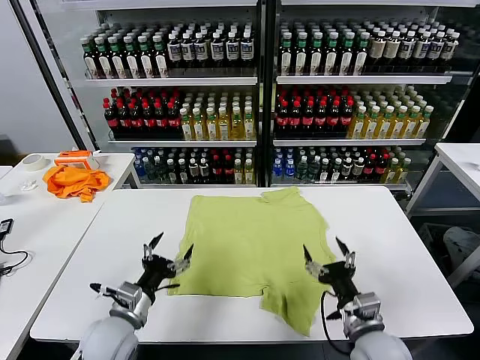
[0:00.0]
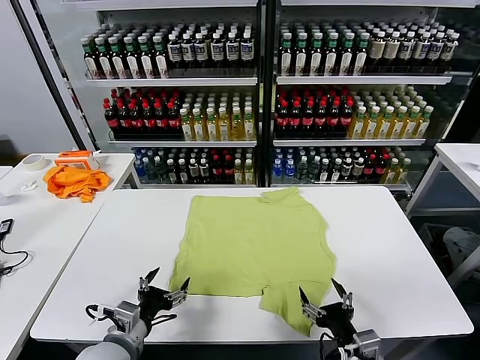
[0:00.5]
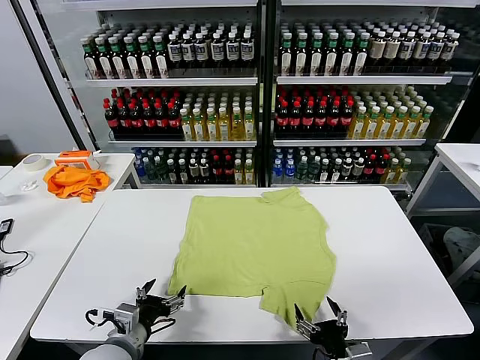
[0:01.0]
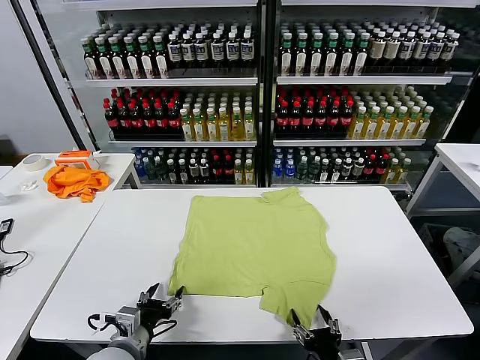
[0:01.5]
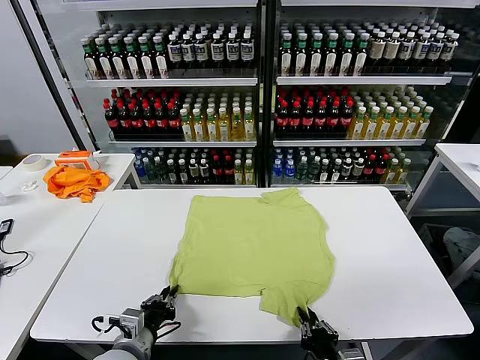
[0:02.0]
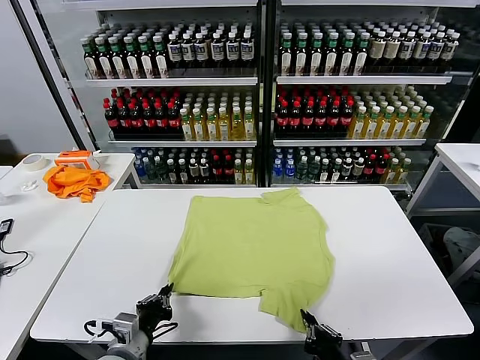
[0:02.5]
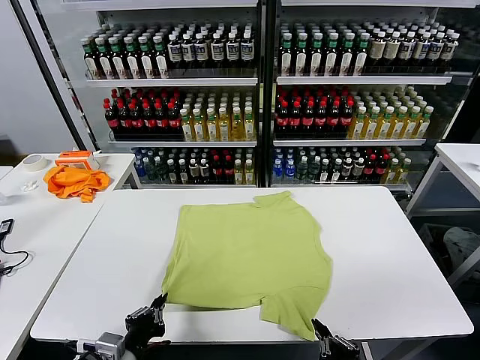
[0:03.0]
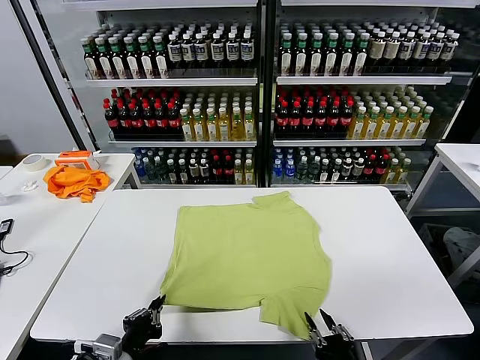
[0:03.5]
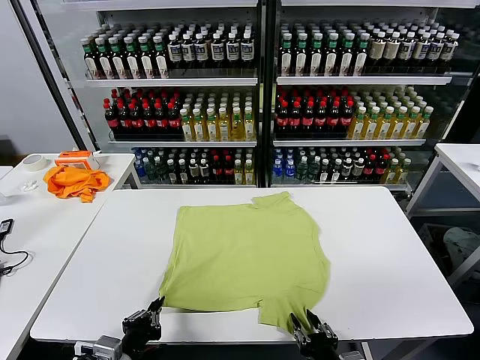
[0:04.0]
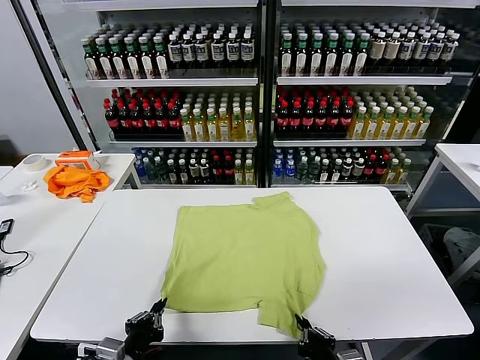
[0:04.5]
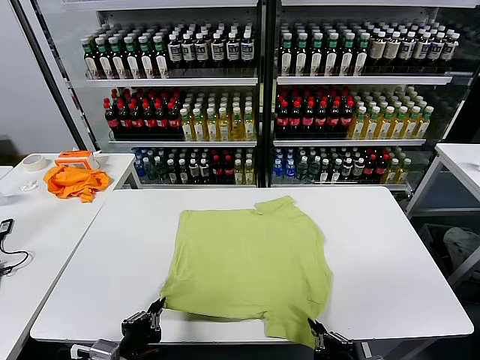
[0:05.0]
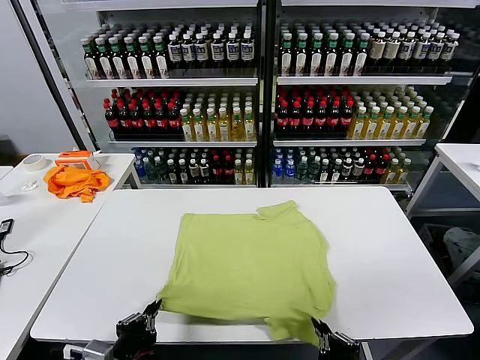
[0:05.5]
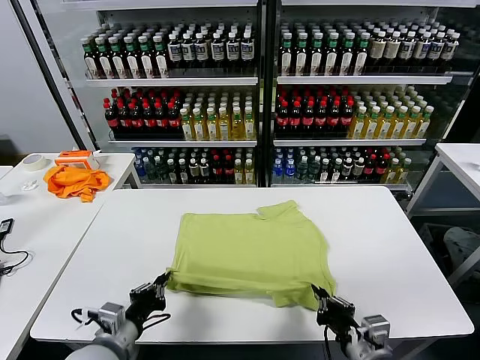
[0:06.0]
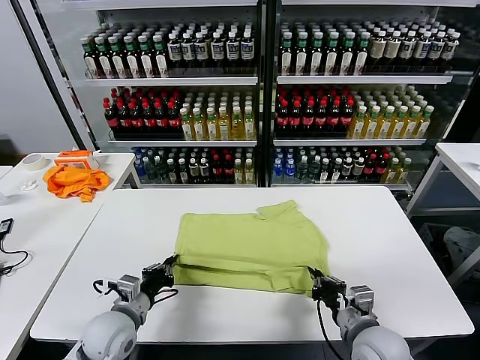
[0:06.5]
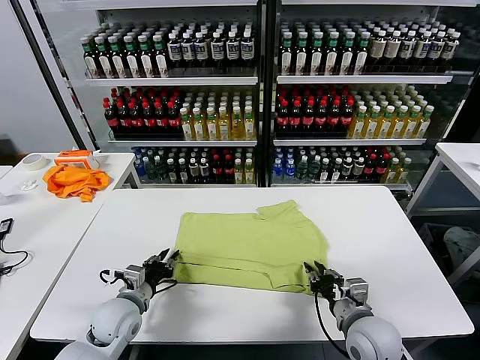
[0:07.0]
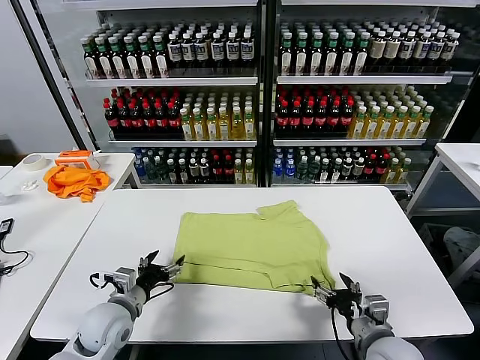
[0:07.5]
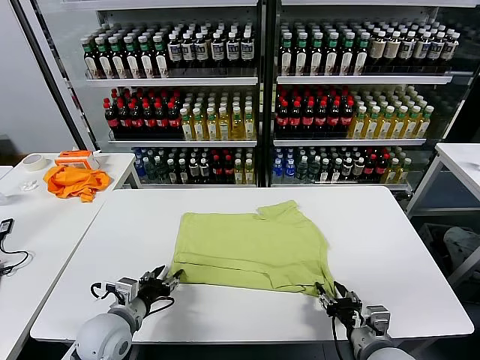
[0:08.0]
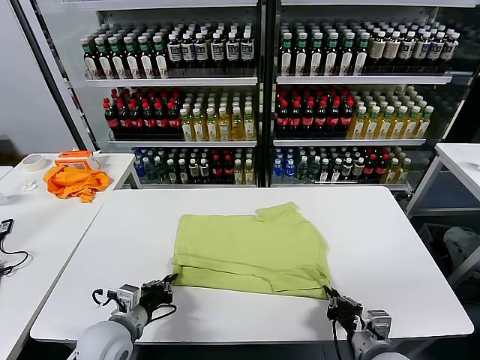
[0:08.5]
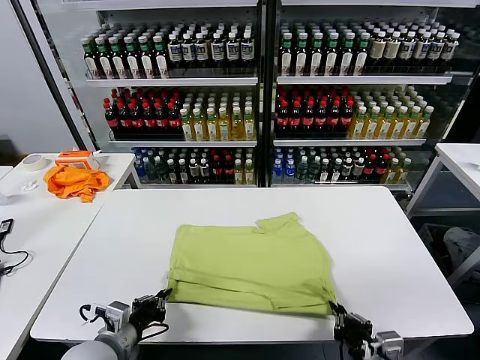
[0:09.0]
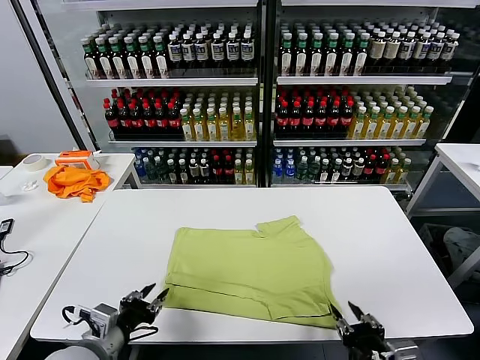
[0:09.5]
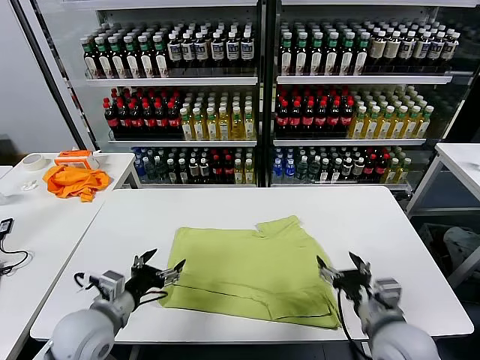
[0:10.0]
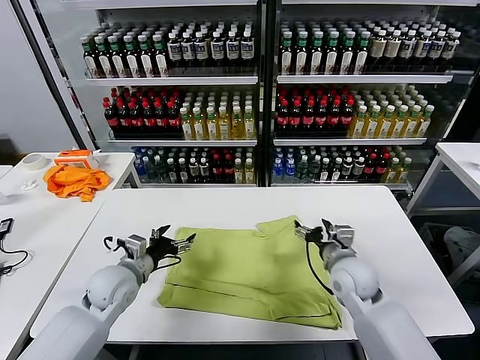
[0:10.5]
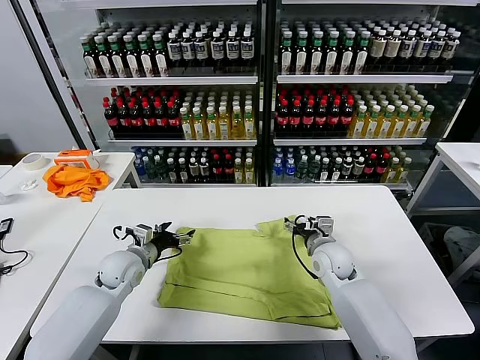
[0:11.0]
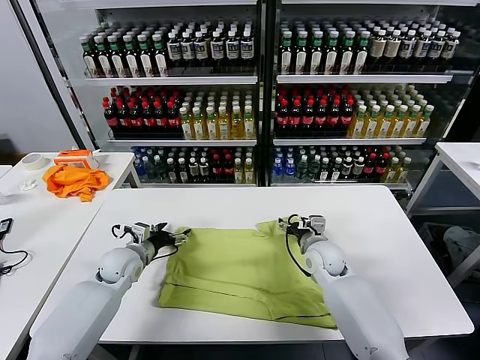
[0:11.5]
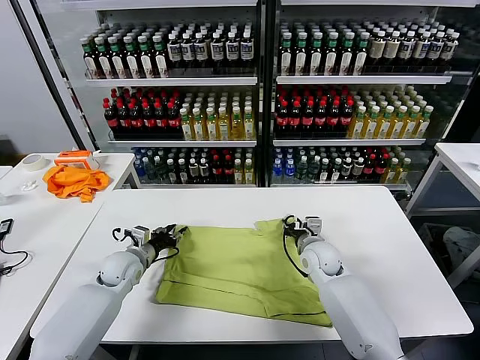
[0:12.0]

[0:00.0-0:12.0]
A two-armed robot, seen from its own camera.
Task of the whole recording: fold and organize the clothes.
Step, 0:00.0 to 0:02.0: use both grippers simultaneously to clamp the lower edge of the clothing fabric.
Step, 0:02.5 to 0:07.0: use both grippers to drag the lower edge of the fabric forward and fold it over the upper edge.
Step, 0:07.5 to 0:09.0: Drag the clothes downward with both gripper.
0:02.0 to 0:04.0: The left gripper goes approximately 5 cm backward.
0:04.0 to 0:06.0: The left gripper heads forward, covering approximately 5 cm, while the right gripper moves forward and upward, approximately 10 cm.
0:06.0 to 0:08.0: The right gripper moves some 5 cm, and opens its fingers. The left gripper travels forward by roughly 5 cm, and opens.
0:08.0 to 0:10.0: The right gripper is displaced upward and forward by roughly 10 cm, and opens up. Meanwhile the left gripper shifts roughly 5 cm upward, and opens its fingers.
0:10.0 to 0:12.0: The two grippers go approximately 20 cm forward and downward. The left gripper closes up. The right gripper closes its fingers.

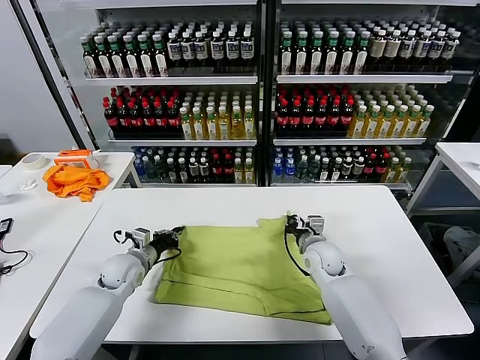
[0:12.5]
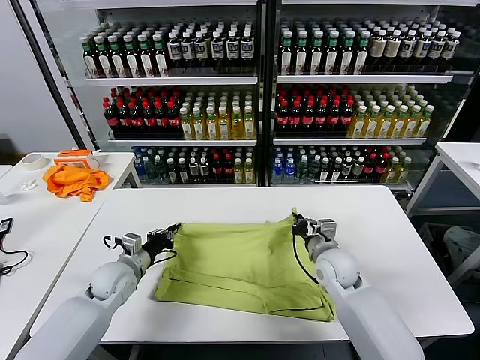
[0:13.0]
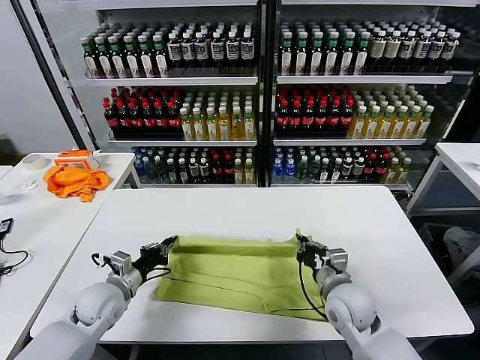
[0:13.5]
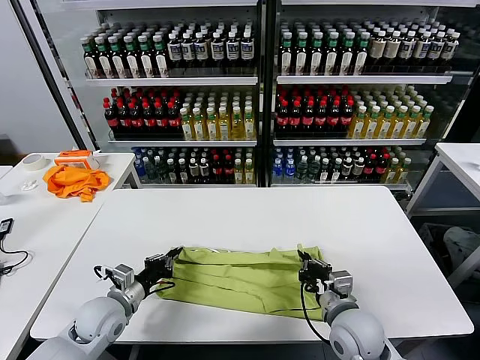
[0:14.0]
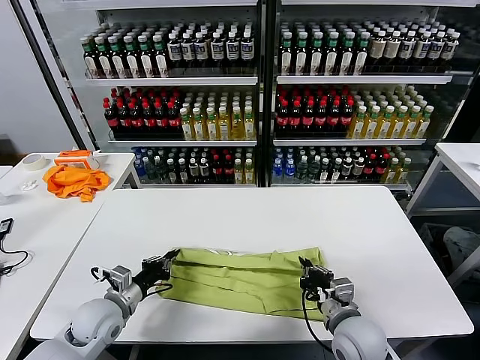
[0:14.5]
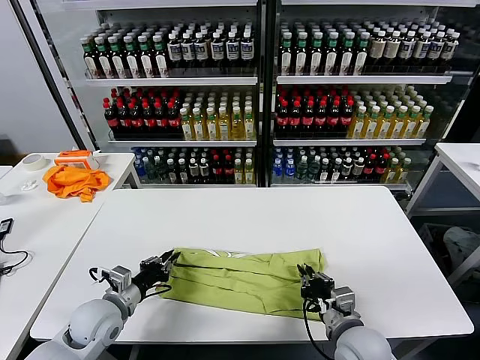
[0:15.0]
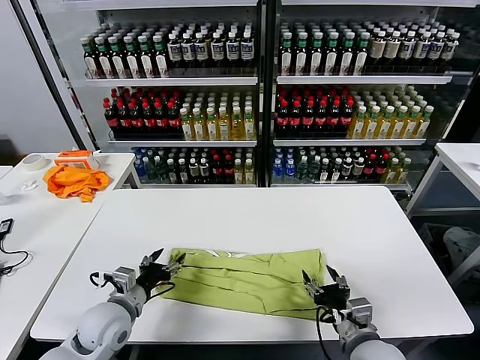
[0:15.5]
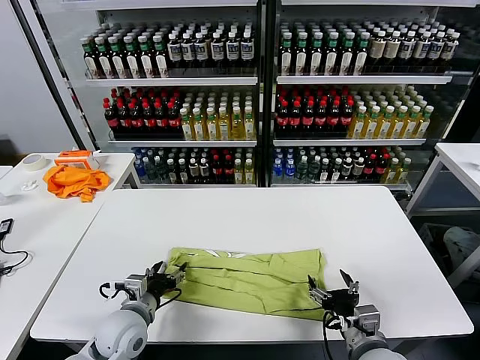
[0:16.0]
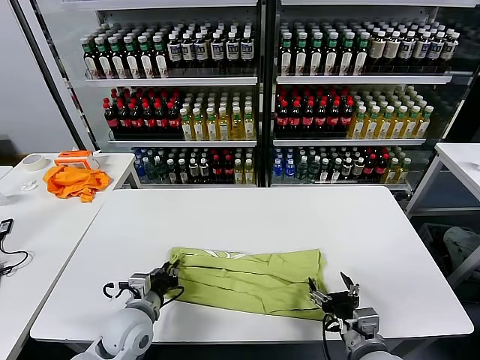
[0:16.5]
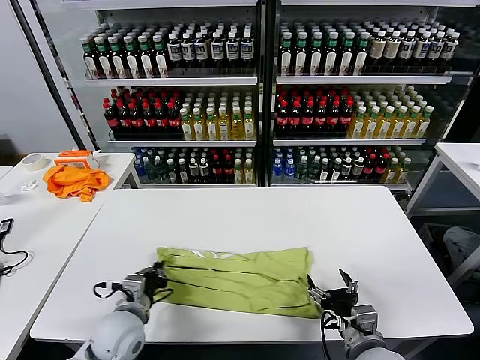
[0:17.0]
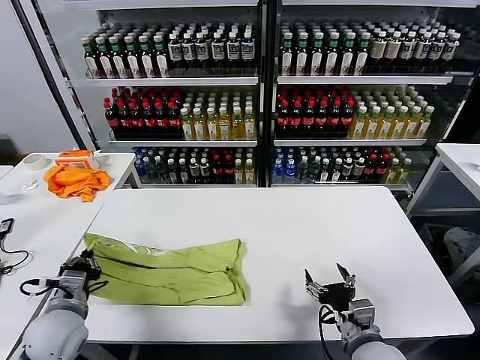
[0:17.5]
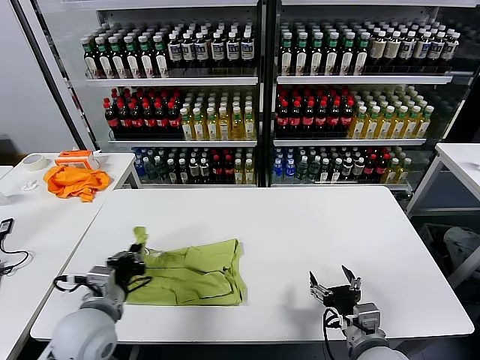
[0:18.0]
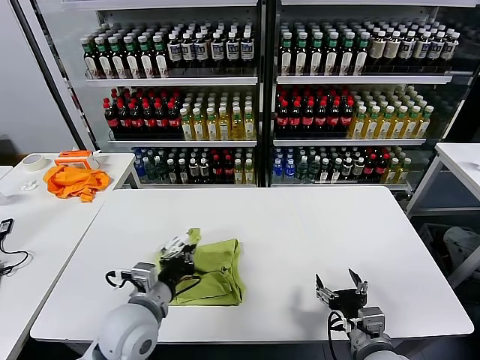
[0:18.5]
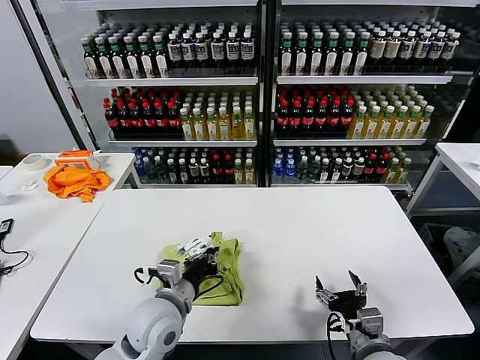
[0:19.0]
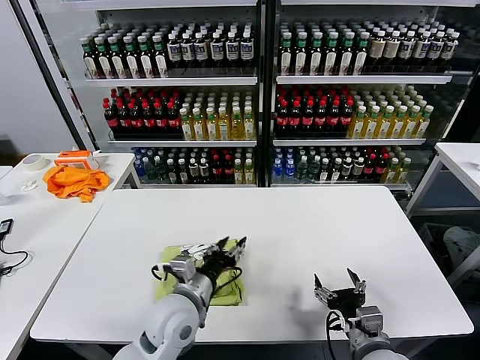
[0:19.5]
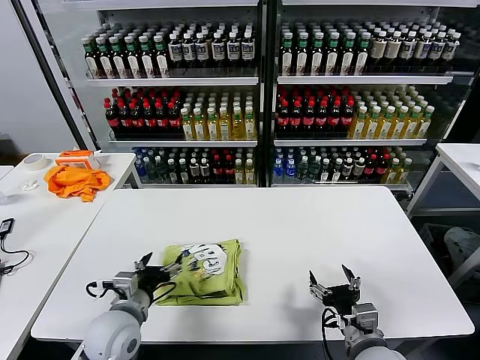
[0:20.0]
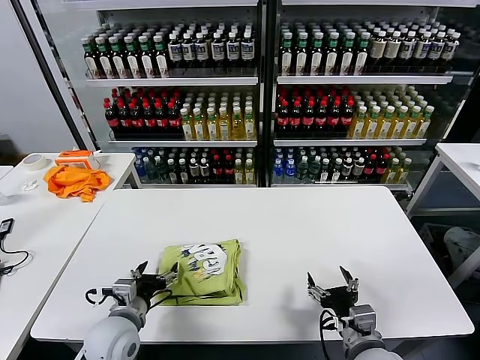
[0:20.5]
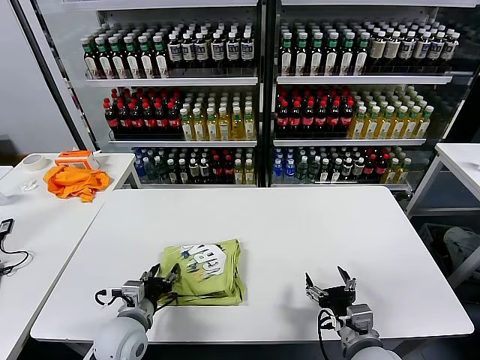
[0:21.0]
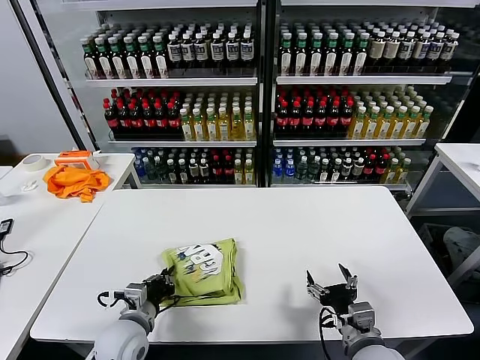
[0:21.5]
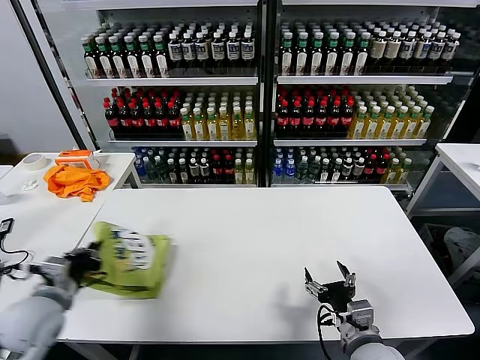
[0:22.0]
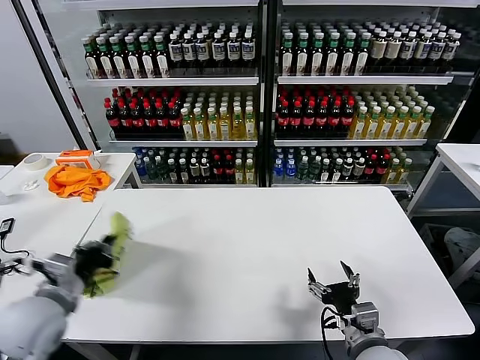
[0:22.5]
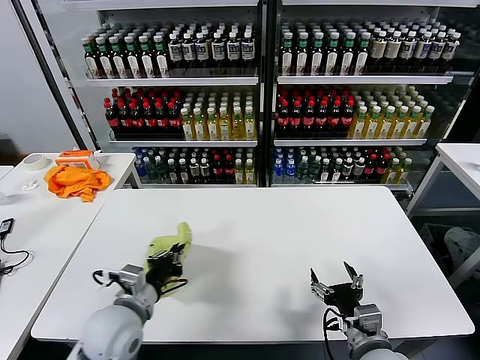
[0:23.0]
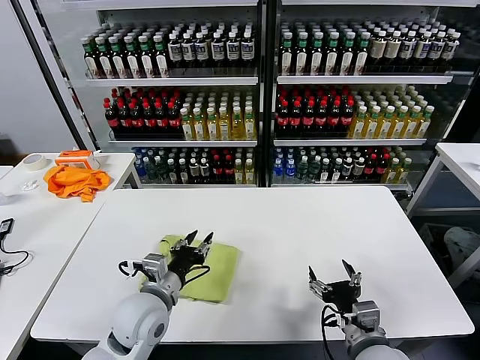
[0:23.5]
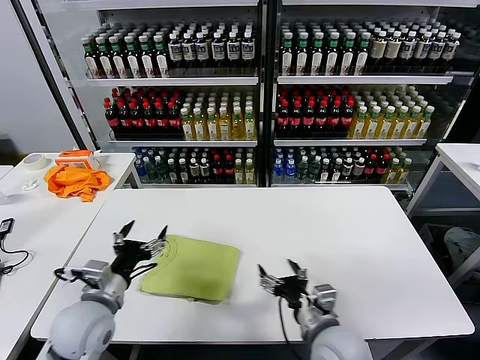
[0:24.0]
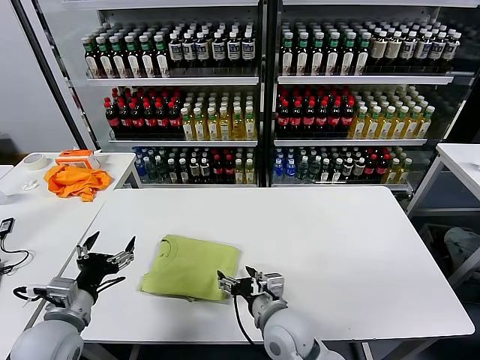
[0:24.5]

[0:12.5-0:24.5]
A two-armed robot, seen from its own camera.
Task of the whole recording: fold and organize the clothes.
Step, 0:12.5 to 0:15.0: use both grippers to drag the upper edge of the fabric backward and fold it over the lower edge.
Step, 0:15.5 to 0:16.5: use the left gripper to clamp the left edge of the fabric.
Step, 0:17.0 to 0:19.0: use the left gripper to drag the left edge of the fabric to the left and folds it over the right edge.
Step, 0:19.5 to 0:23.0: Flip the folded clothes over with left gripper.
0:12.5 to 0:14.5: The left gripper moves backward, some 15 cm. Meanwhile the right gripper is displaced backward by some 20 cm.
0:14.5 to 0:16.5: The right gripper travels backward by approximately 5 cm, and opens. The left gripper shifts roughly 5 cm to the right, and opens, then closes again.
0:16.5 to 0:18.5: The left gripper travels upward by roughly 10 cm, and moves roughly 10 cm to the left and comes back.
0:18.5 to 0:20.5: The left gripper shifts some 10 cm downward and to the left, and opens up.
0:20.5 to 0:22.5: The left gripper moves upward and to the left, roughly 15 cm, and closes its fingers.
0:22.5 to 0:24.5: The left gripper moves approximately 15 cm to the right and comes back, and opens up; the right gripper travels to the left and forward by roughly 20 cm.

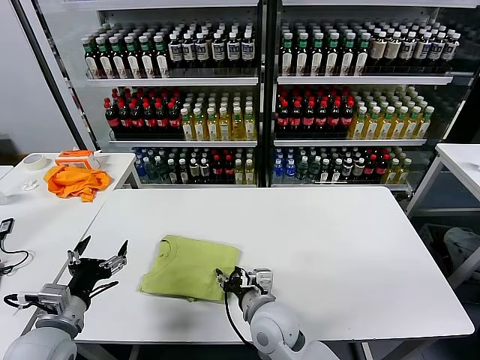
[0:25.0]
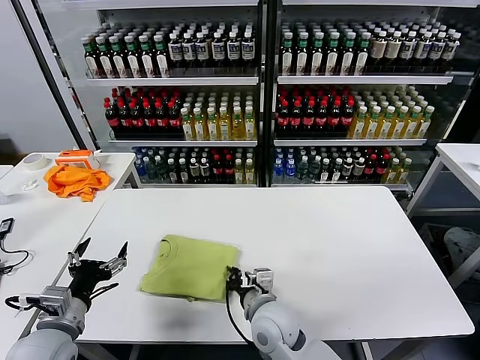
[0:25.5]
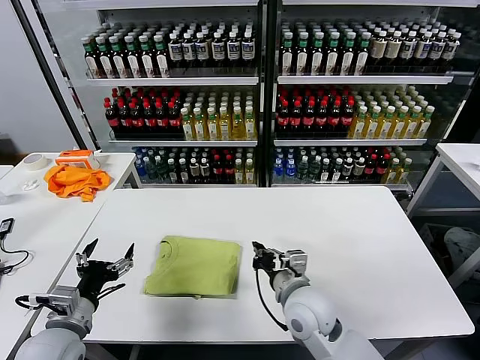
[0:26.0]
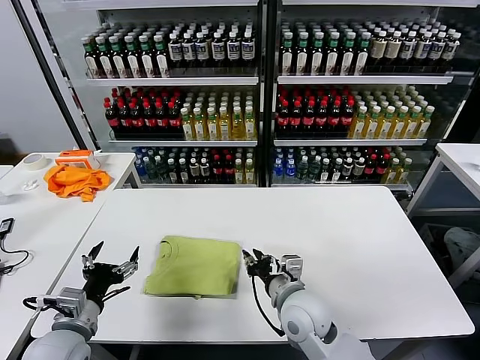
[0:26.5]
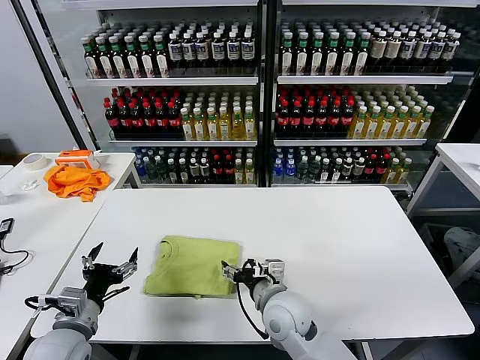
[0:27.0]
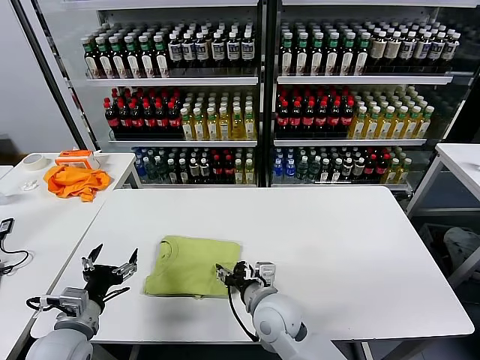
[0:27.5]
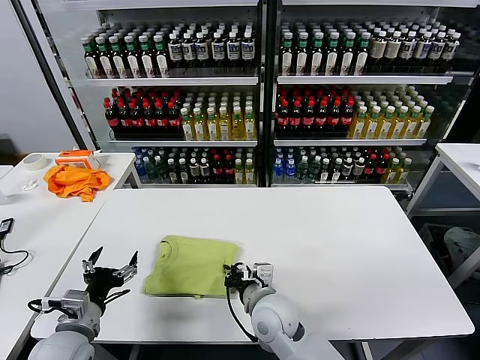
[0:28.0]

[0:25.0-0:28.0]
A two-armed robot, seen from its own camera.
Task of the whole recording: fold and organize the clothes.
0:25.0 to 0:26.5: The right gripper shifts approximately 5 cm to the right, and closes, then reopens.
0:26.5 to 0:28.0: The right gripper moves to the left, roughly 5 cm, and opens, then closes once more.
